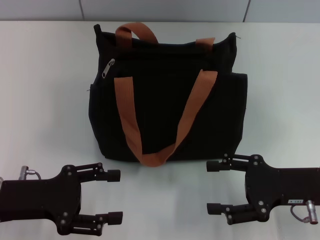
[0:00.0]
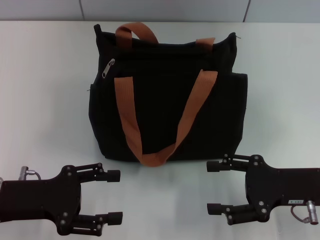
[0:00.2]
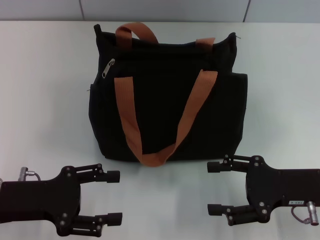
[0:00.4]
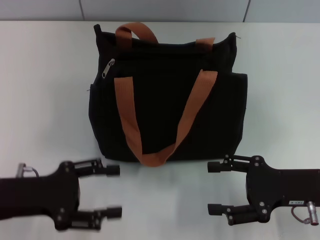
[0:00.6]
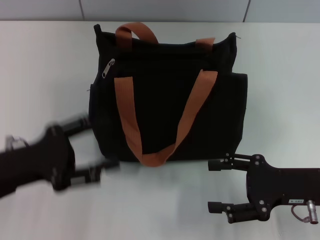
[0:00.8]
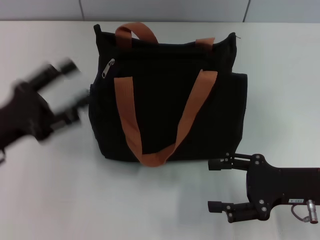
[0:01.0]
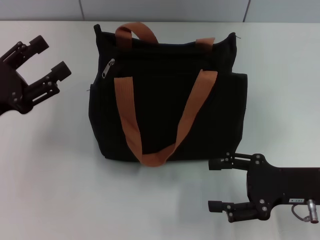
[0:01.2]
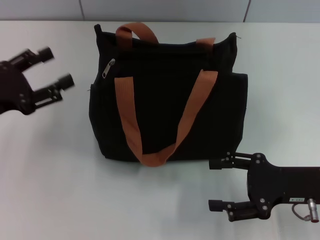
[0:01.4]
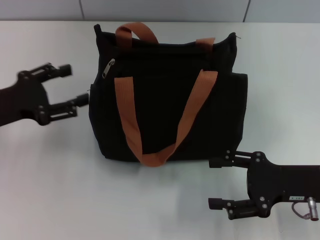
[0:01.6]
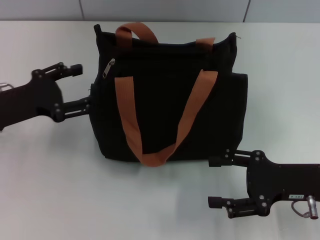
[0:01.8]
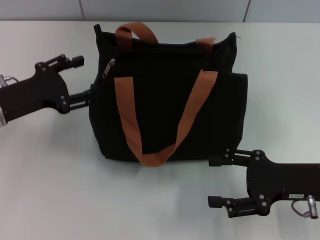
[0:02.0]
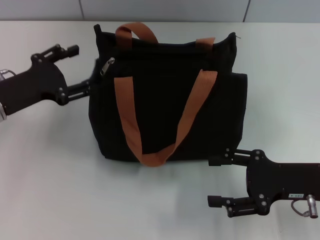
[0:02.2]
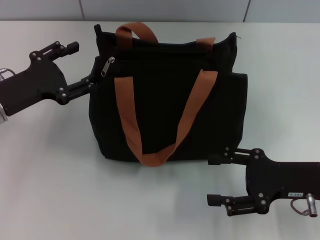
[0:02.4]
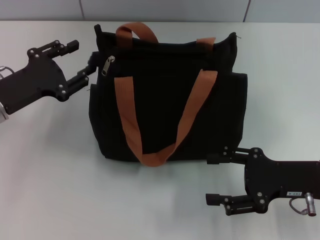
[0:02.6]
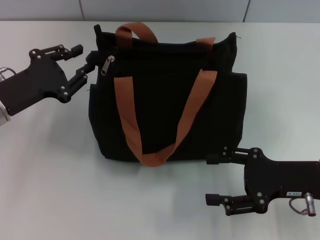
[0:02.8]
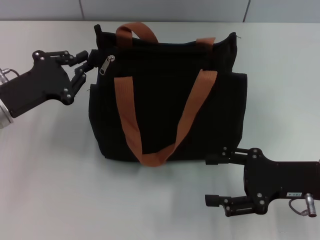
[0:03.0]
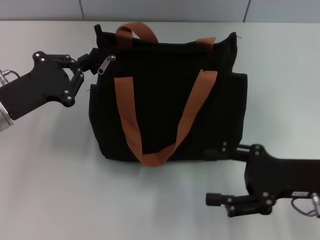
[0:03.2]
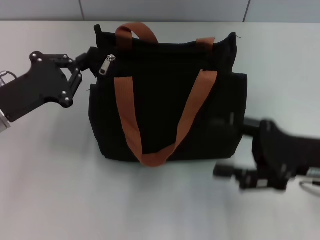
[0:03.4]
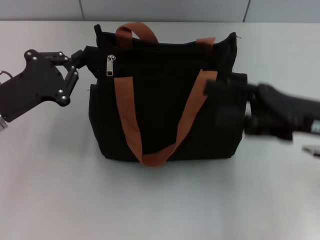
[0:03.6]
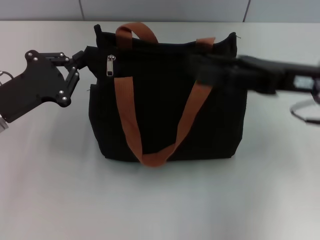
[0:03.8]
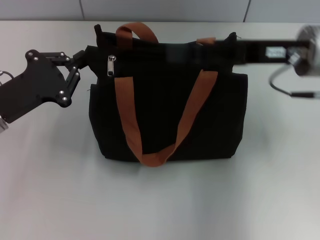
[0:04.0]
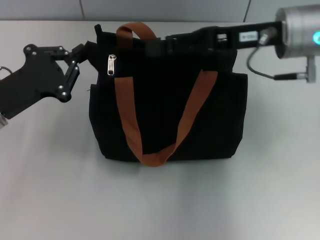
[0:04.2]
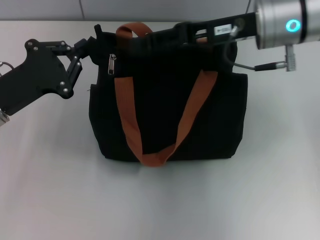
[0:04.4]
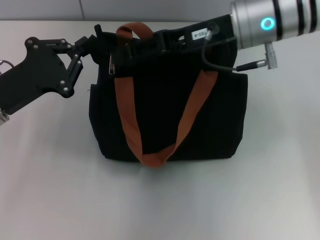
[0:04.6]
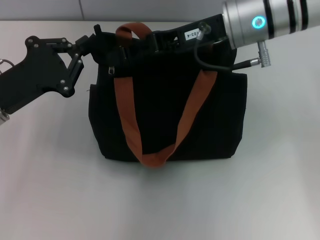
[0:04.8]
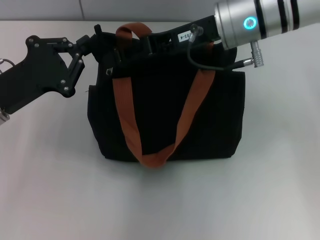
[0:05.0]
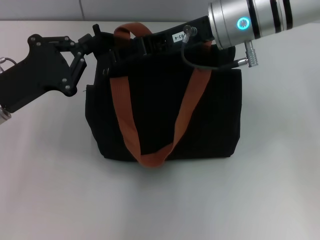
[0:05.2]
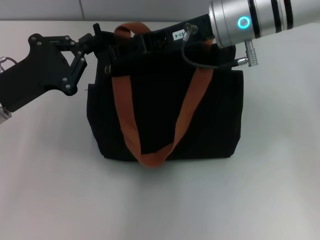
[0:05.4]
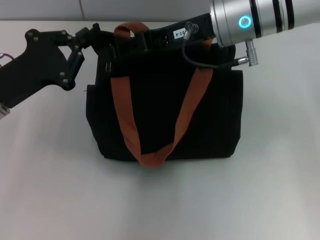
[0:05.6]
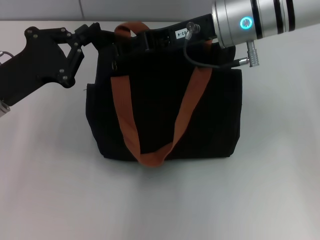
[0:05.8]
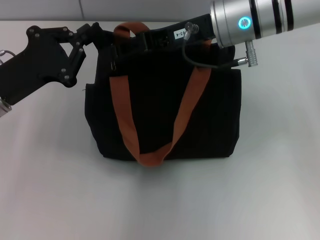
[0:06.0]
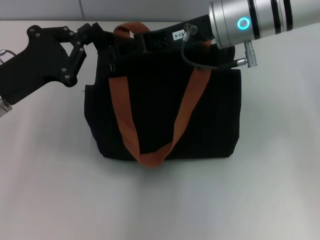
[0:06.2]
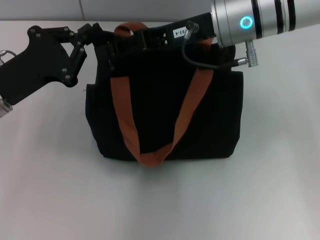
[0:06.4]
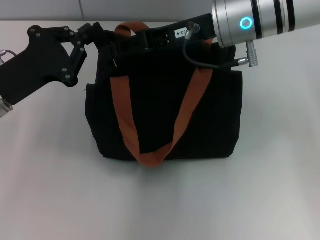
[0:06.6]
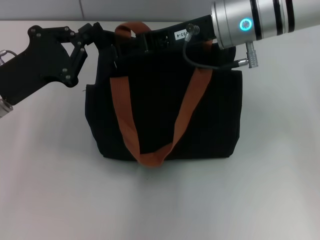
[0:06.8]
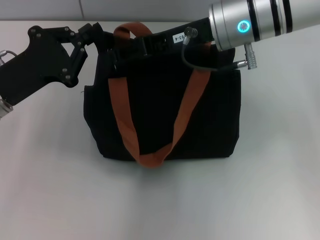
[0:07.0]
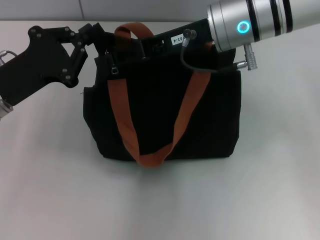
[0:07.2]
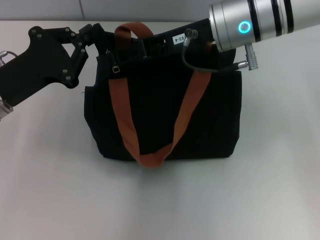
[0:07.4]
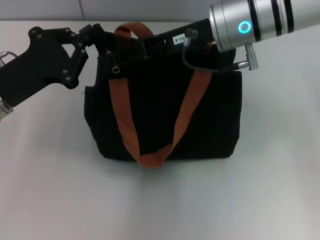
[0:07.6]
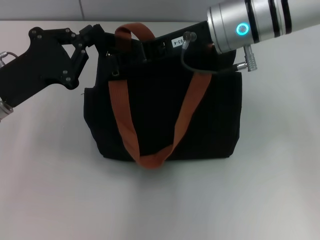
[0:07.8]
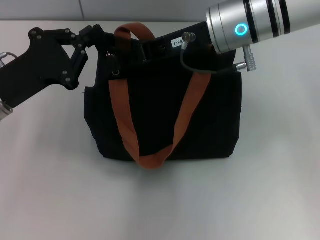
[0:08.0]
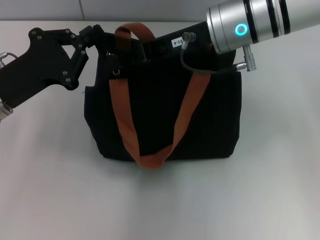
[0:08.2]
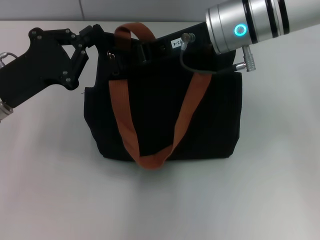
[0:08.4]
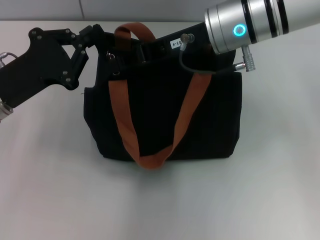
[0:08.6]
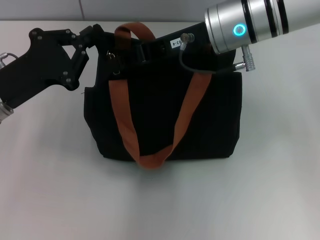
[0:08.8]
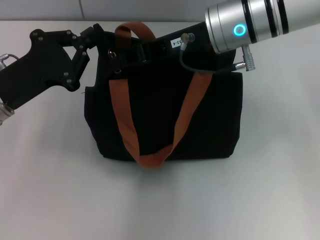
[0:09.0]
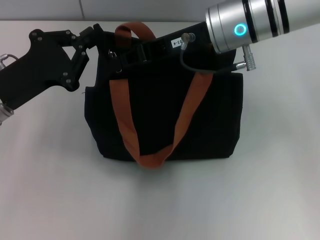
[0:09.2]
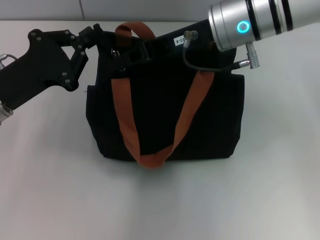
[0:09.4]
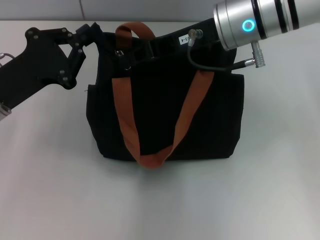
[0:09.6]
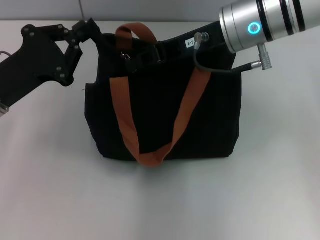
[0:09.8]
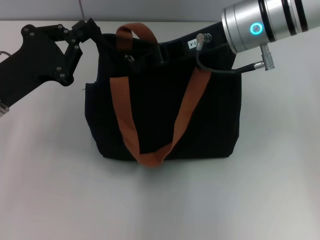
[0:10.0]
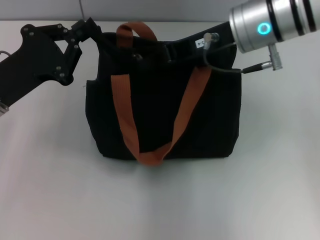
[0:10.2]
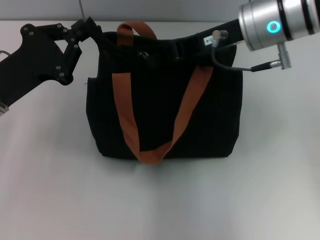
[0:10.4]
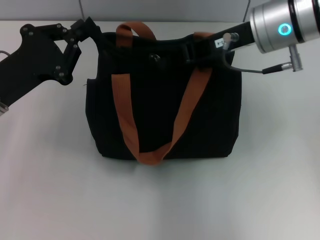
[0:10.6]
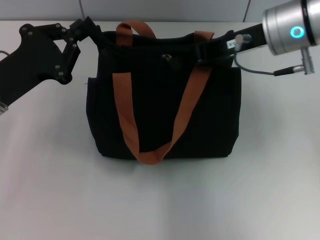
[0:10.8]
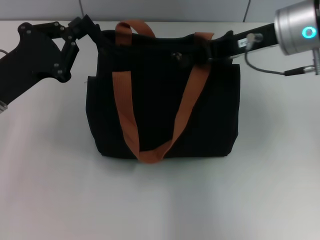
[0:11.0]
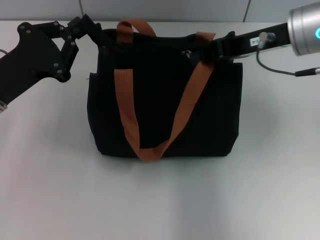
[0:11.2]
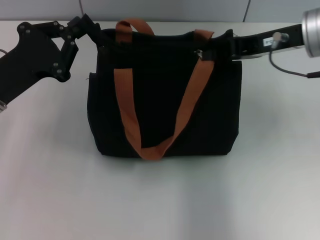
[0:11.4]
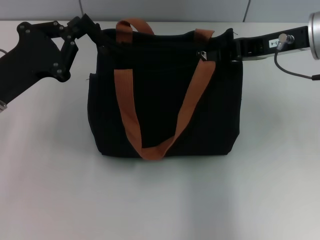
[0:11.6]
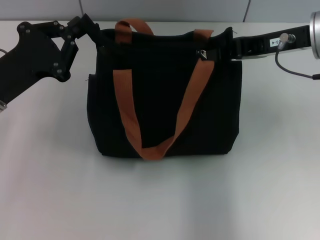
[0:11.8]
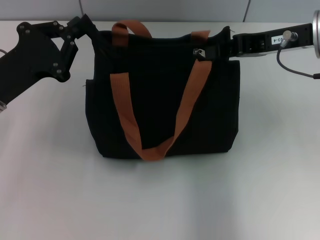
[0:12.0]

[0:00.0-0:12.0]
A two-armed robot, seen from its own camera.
0:00.0 to 0:01.6: The left gripper moves forward, approximately 10 cm.
0:01.6 to 0:03.0: The left gripper closes.
0:03.0 to 0:04.4: The right gripper travels forward, upward and to the left by some 20 cm; the left gripper closes its fingers.
0:04.4 to 0:06.0: The grippers stay close to where they were, moving slightly.
0:06.0 to 0:07.6: Both grippers stay put.
0:07.6 to 0:09.0: The right gripper closes up.
0:09.0 to 0:10.4: The grippers stay close to where they were, moving slightly.
0:10.4 to 0:12.0: The right gripper travels to the right by roughly 10 cm.

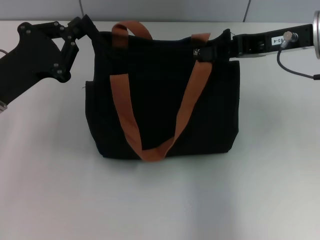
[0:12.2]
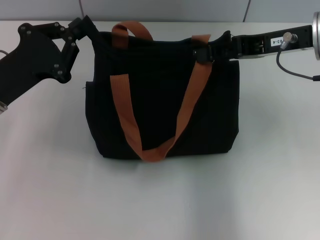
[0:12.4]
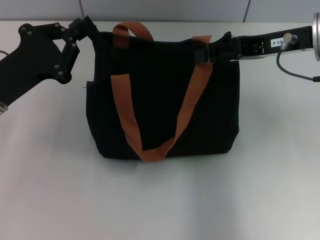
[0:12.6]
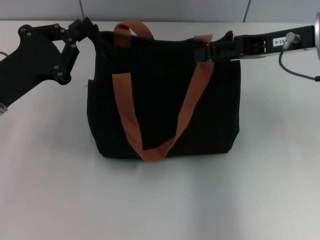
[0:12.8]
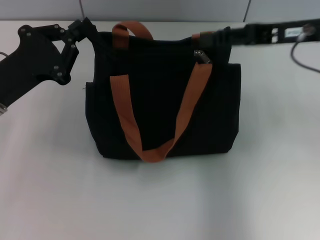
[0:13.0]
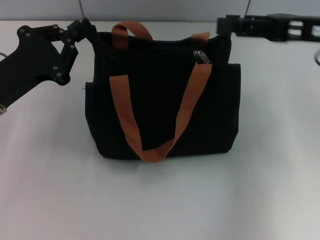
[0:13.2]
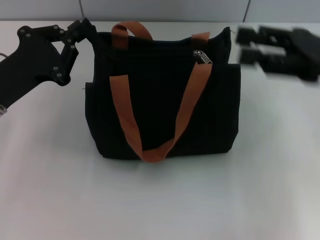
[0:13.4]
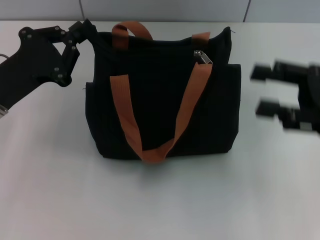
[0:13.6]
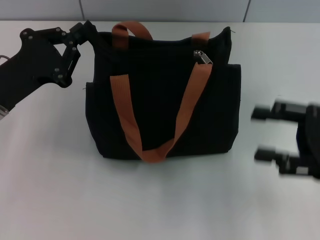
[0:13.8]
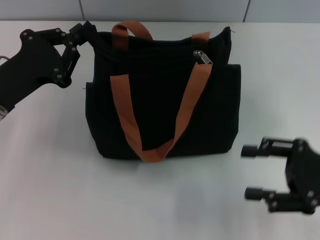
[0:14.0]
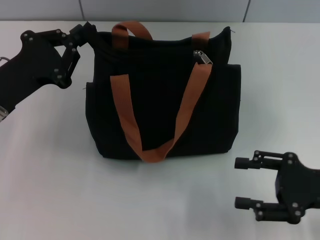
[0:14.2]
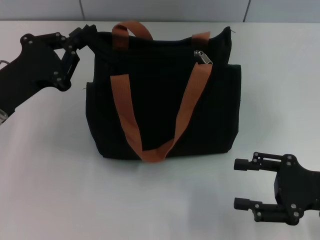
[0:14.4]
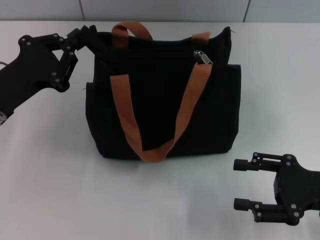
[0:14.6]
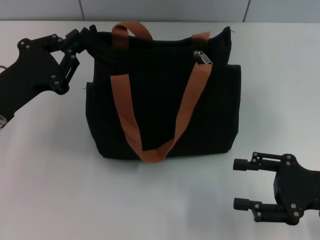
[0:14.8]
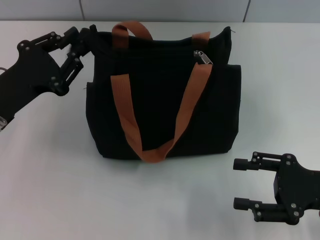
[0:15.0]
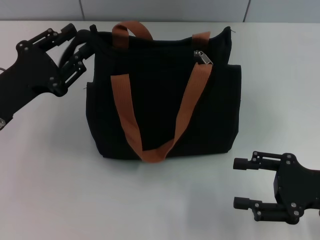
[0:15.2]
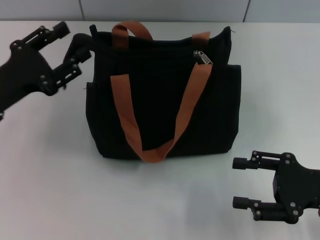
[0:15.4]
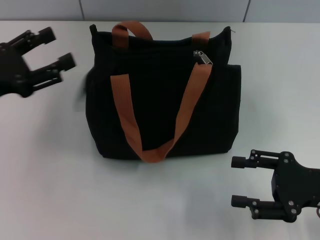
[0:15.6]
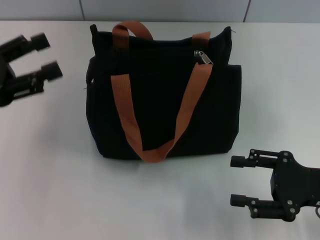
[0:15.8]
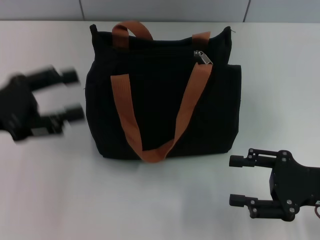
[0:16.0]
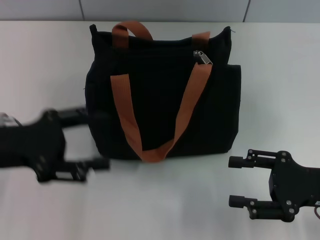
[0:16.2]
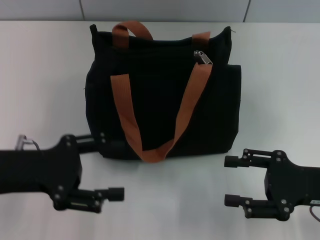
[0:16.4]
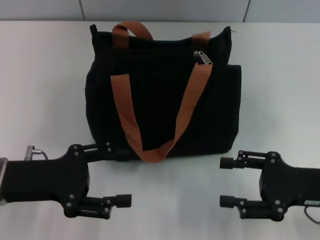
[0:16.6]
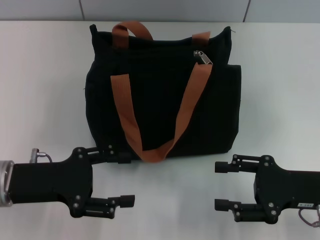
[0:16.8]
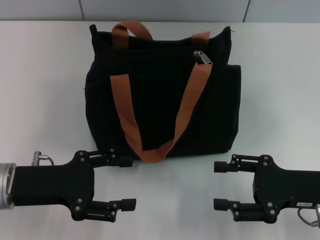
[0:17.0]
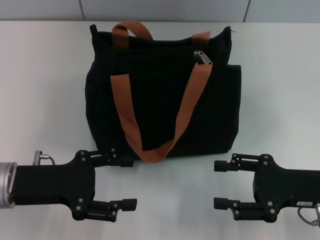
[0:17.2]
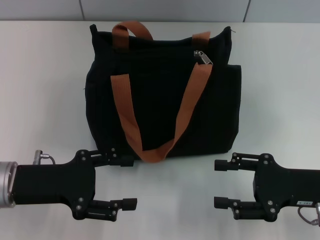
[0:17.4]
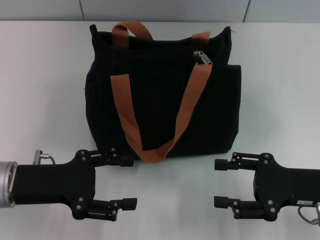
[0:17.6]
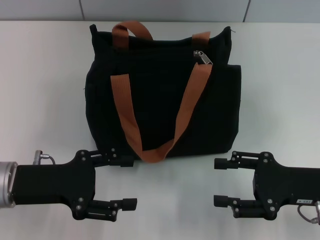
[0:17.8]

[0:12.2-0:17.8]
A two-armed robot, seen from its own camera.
Step, 0:12.4 to 0:15.6: Grab the zipper with your left hand.
0:12.2 to 0:13.6: The right gripper travels backward, to the right and downward by some 15 cm, and opens its fingers.
0:13.6 to 0:15.0: The right gripper is displaced downward and backward by approximately 10 cm.
0:15.0 to 0:16.4: The left gripper opens up.
0:16.4 to 0:17.8: The grippers make only small movements.

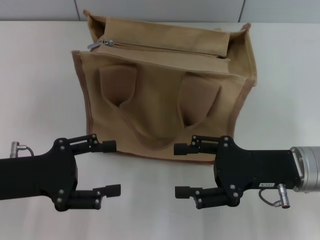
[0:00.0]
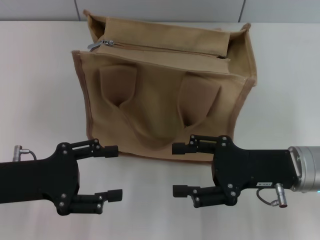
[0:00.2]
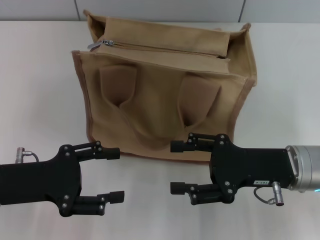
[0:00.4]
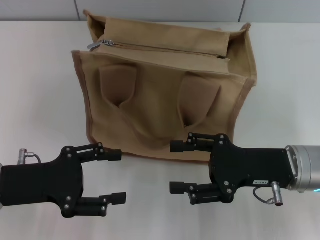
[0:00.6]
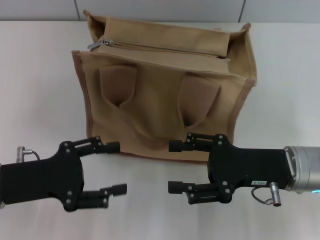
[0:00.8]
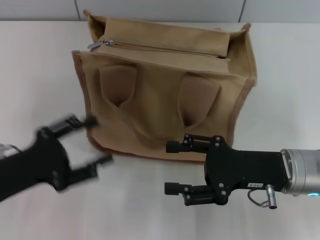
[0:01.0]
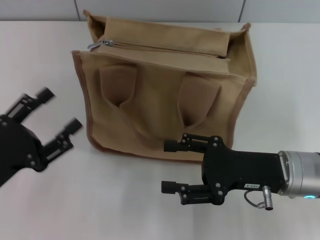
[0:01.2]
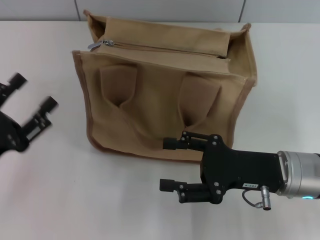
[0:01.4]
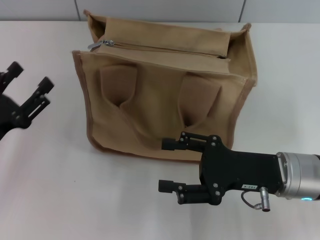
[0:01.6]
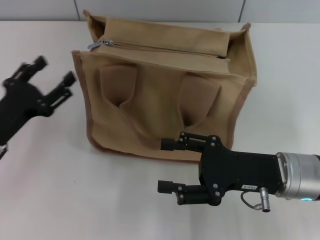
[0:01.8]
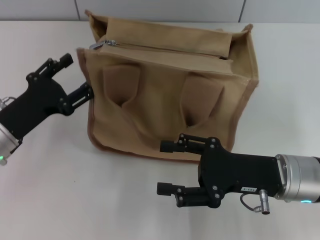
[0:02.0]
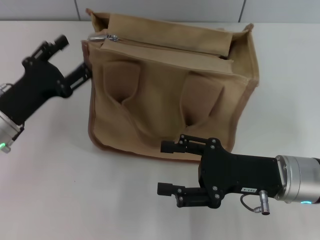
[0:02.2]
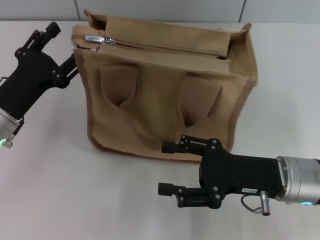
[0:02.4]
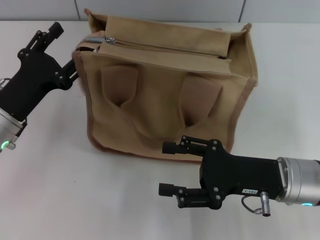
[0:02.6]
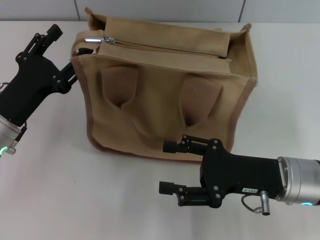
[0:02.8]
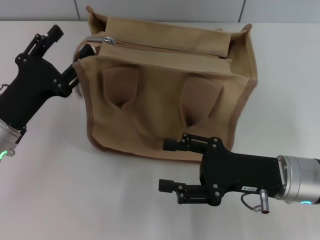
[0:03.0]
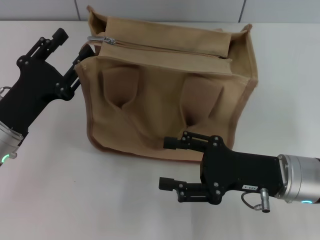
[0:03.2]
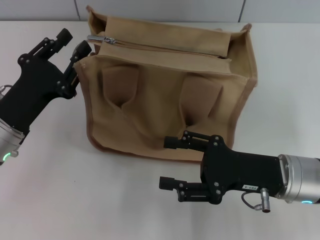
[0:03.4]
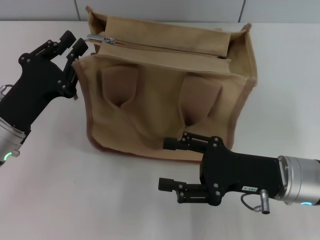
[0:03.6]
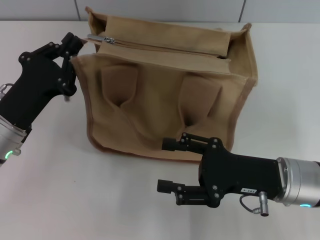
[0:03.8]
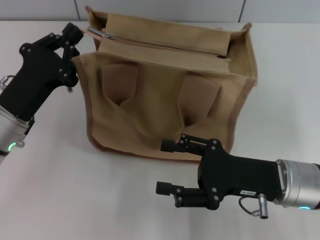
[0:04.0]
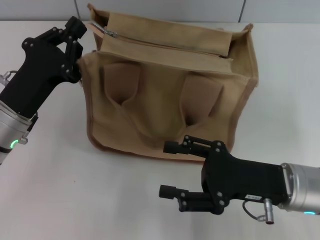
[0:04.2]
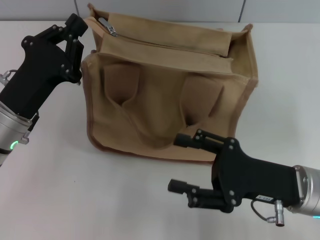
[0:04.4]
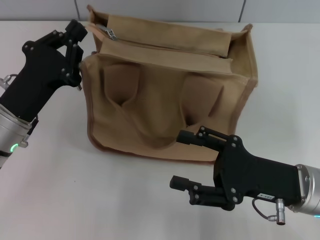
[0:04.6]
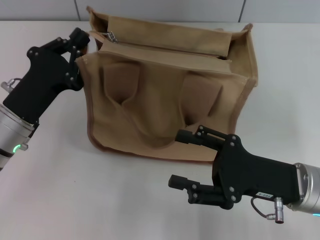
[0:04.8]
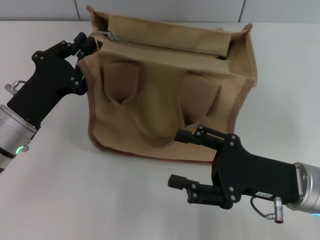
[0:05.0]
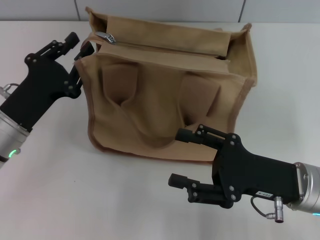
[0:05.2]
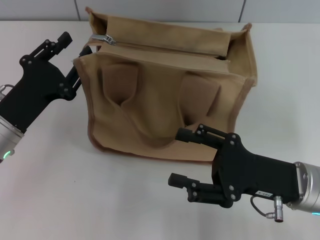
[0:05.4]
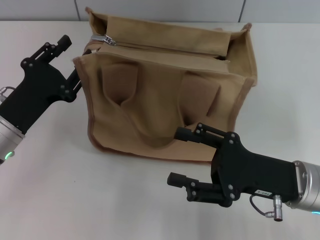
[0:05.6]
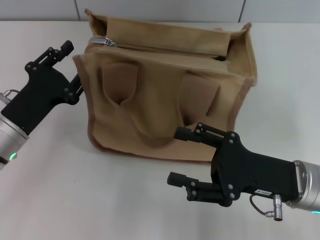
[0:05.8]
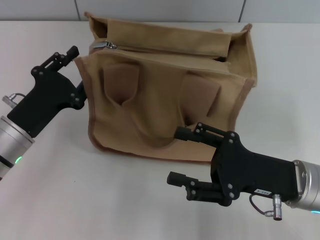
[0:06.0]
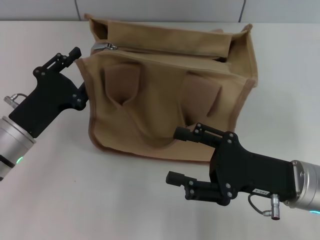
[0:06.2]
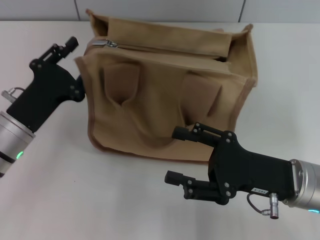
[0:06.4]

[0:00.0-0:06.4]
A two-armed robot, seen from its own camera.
0:01.6 to 0:03.2: The left gripper heads to the right, covering approximately 5 cm.
0:03.2 to 0:04.8: The left gripper closes its fingers.
0:04.8 to 0:06.4: The left gripper opens up.
